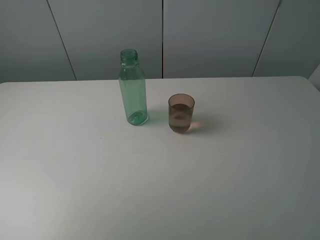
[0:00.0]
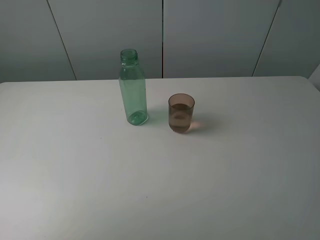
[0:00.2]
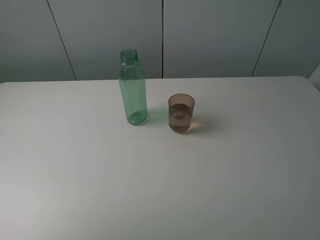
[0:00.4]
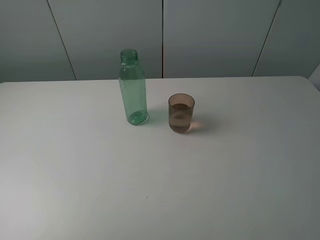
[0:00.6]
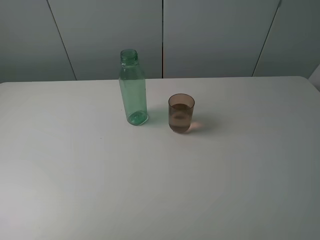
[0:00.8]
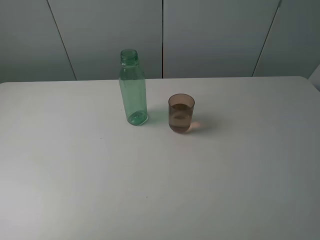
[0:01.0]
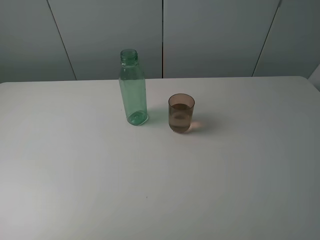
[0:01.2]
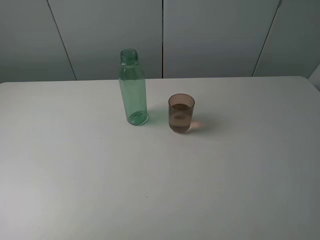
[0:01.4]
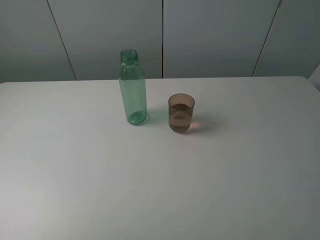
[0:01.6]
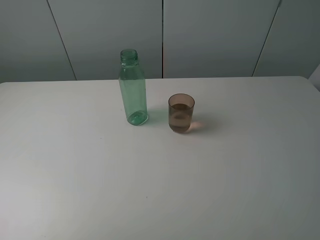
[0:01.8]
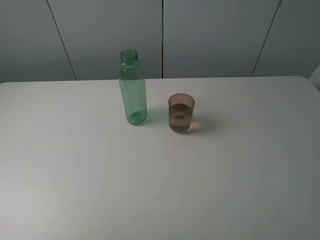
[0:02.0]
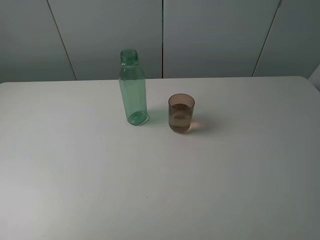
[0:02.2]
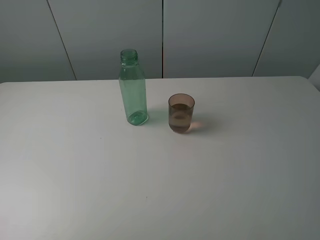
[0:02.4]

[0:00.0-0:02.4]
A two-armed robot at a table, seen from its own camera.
Task of the whole recording: pick up the bottle filled with water and pour it into the pink cup.
0:01.2 to 0:02.4: Both grippers stay put.
